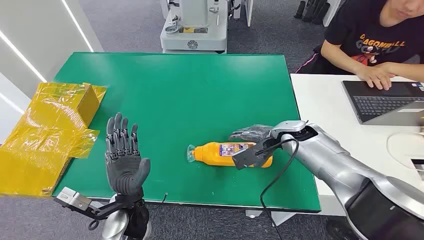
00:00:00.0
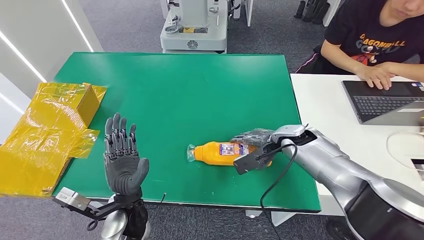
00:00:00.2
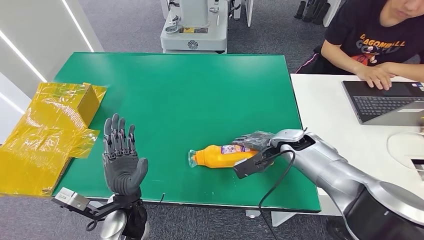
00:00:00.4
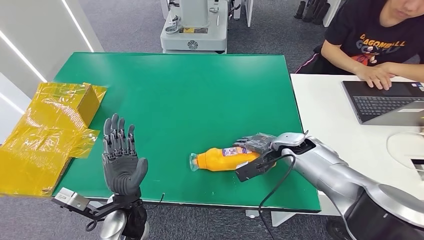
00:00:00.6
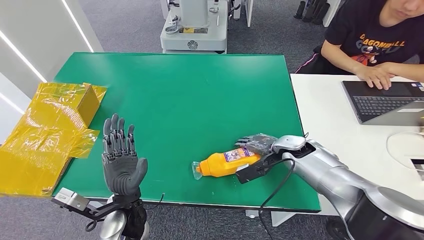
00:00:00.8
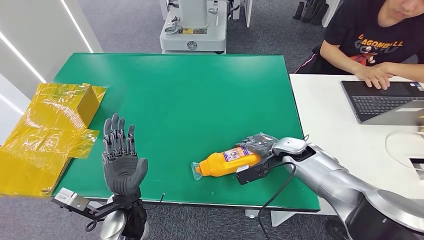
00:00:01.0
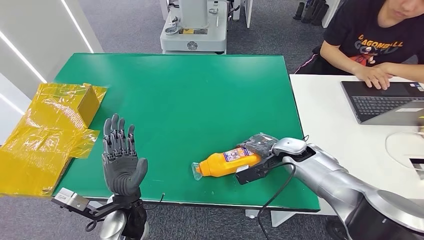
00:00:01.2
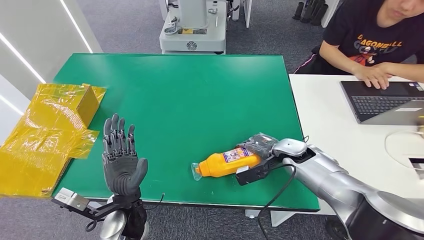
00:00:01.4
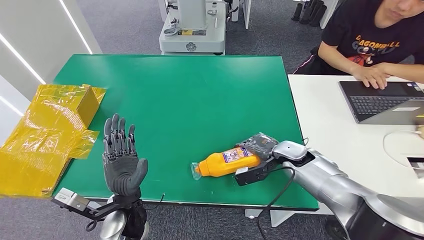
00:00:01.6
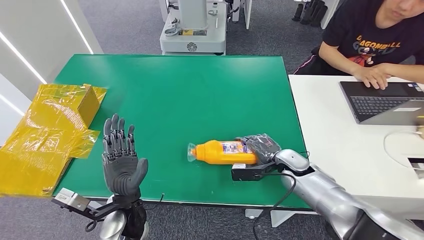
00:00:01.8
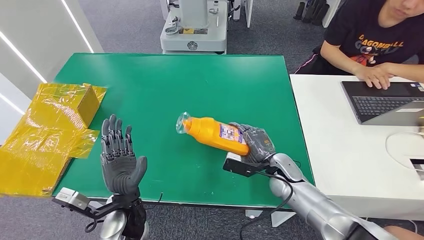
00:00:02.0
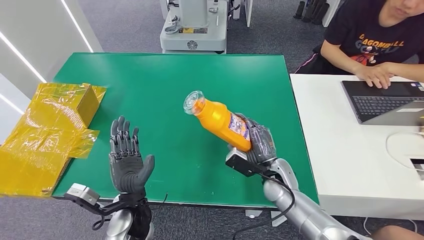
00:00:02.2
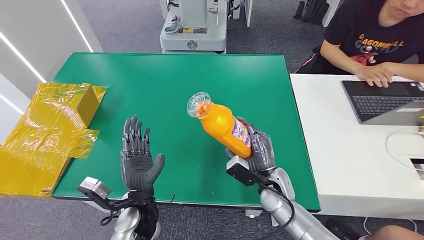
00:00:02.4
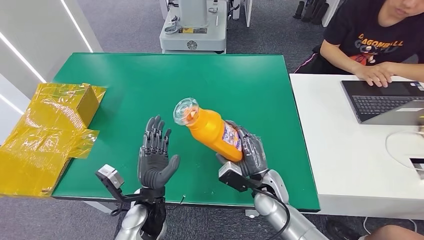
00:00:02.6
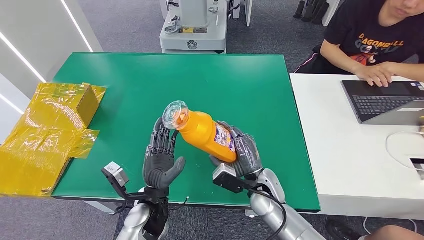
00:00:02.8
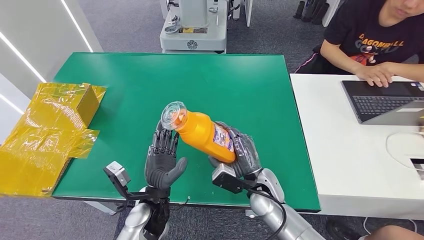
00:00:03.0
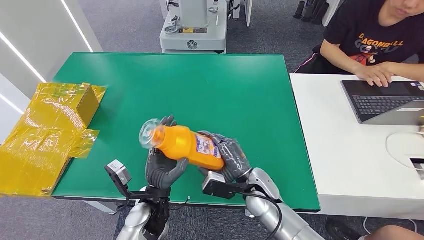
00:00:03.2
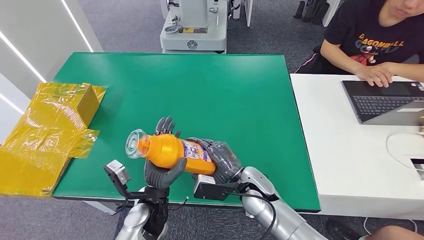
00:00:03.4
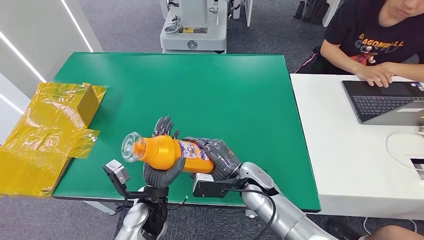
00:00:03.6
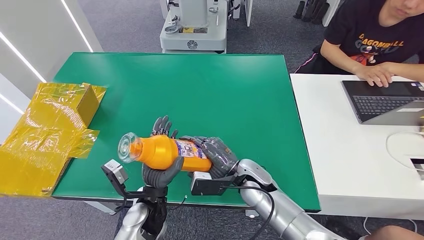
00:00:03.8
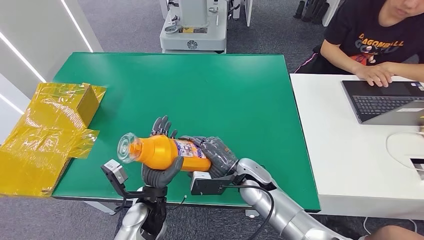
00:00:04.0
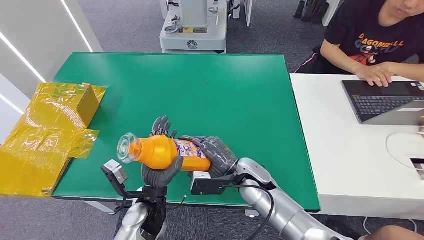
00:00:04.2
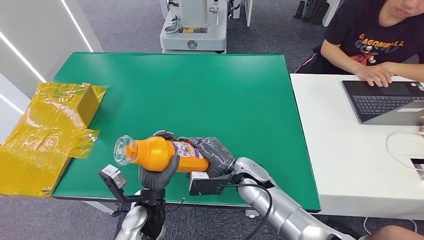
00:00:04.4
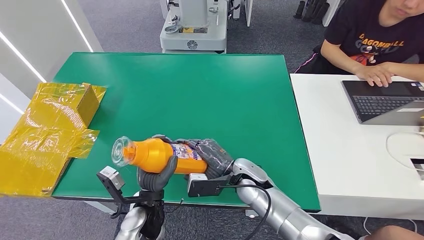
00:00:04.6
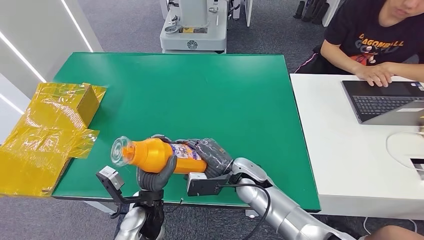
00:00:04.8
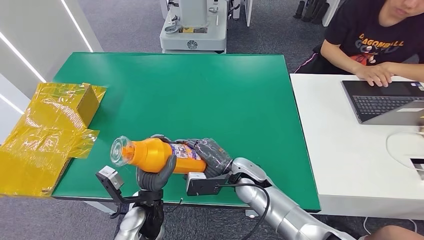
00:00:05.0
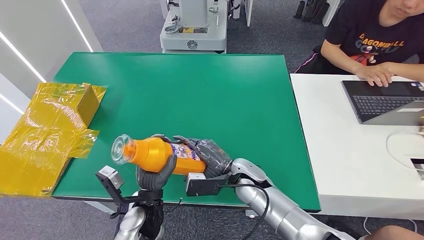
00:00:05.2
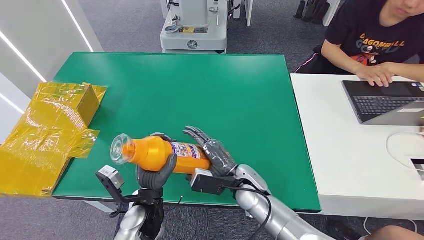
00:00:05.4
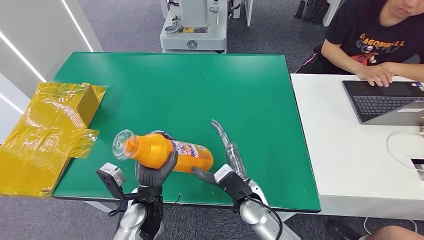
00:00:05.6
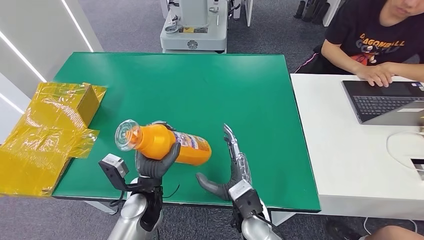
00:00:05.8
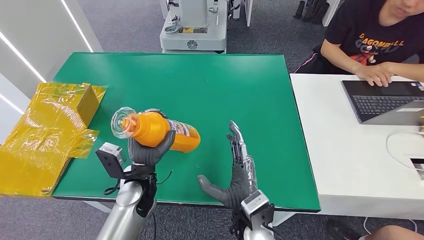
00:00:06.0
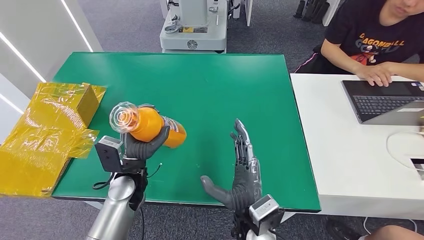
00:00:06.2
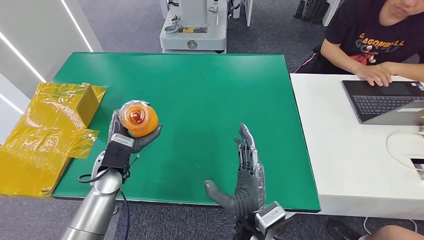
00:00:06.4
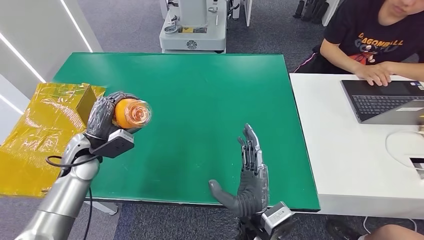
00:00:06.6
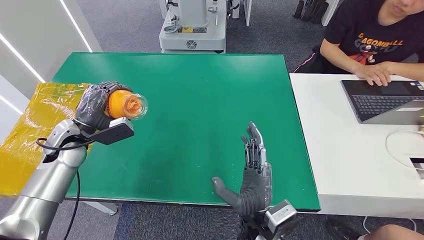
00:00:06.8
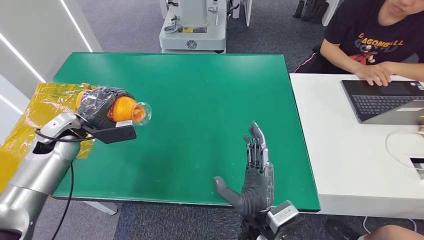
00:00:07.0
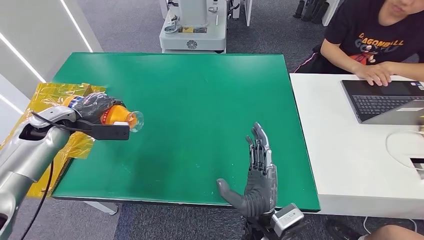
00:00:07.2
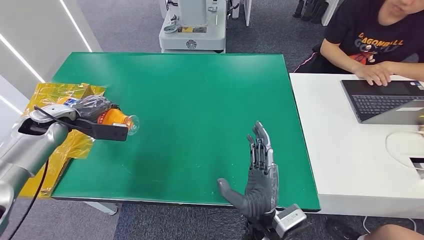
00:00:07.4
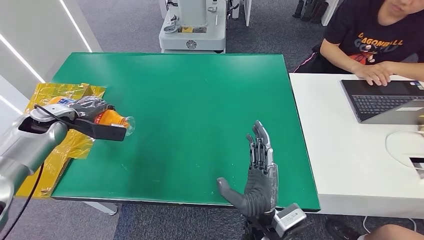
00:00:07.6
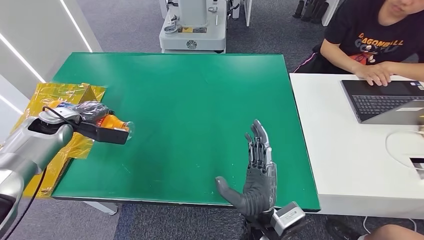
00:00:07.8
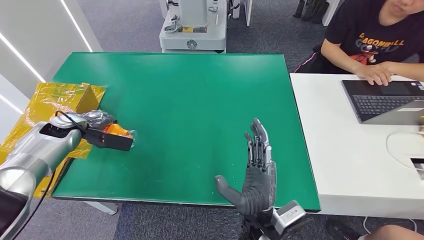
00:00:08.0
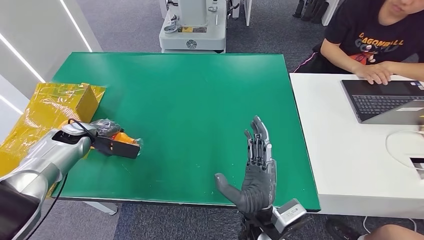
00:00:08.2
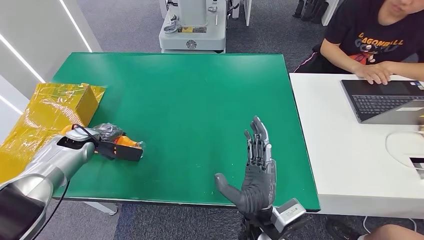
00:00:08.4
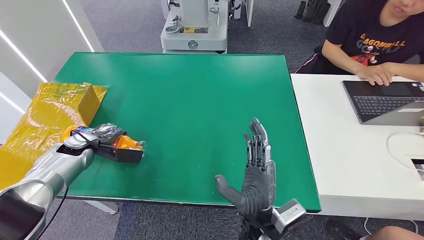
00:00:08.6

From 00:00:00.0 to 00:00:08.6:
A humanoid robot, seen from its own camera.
Step, from 00:00:00.0 to 00:00:03.8: Pick up the bottle from the table.
Step, from 00:00:04.2 to 00:00:08.6: Turn the bottle to the front side.
From 00:00:02.8 to 00:00:04.4: The right hand changes place by some 5 cm.
From 00:00:04.4 to 00:00:05.8: The right hand goes about 10 cm backward.
From 00:00:05.8 to 00:00:07.2: The left hand goes roughly 35 cm to the left, forward and upward. The right hand moves some 5 cm.
From 00:00:07.2 to 00:00:08.6: The left hand goes about 10 cm downward.
